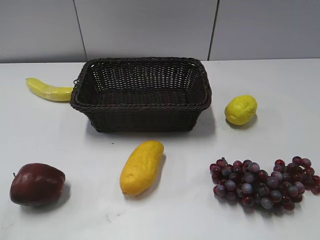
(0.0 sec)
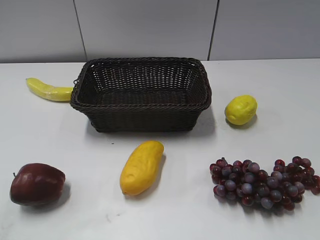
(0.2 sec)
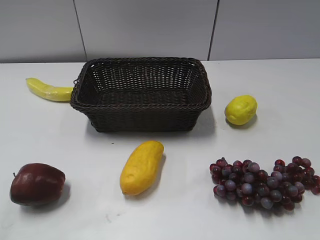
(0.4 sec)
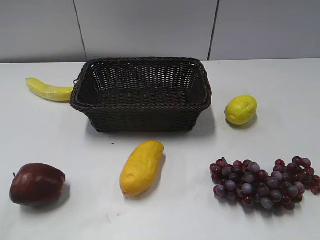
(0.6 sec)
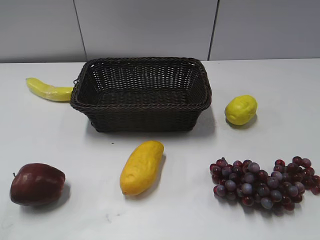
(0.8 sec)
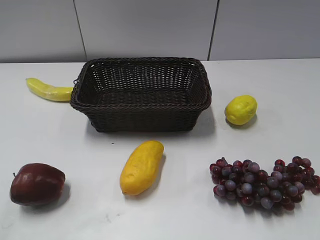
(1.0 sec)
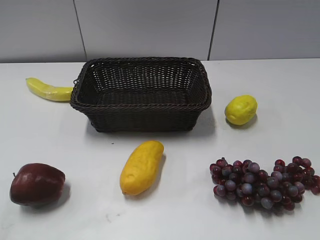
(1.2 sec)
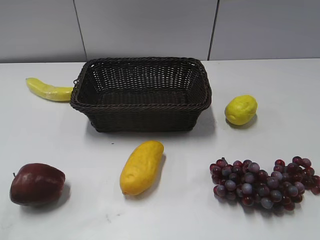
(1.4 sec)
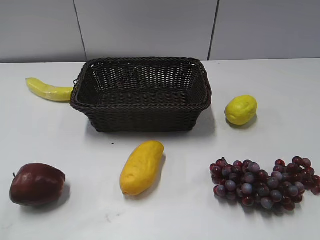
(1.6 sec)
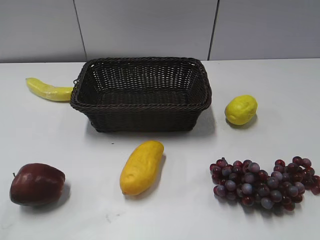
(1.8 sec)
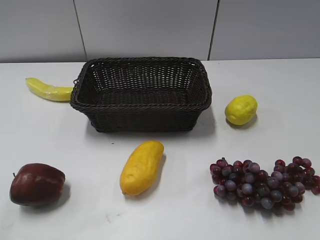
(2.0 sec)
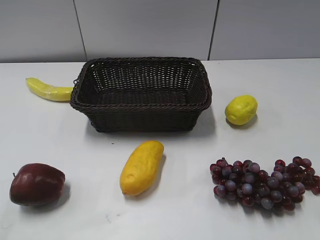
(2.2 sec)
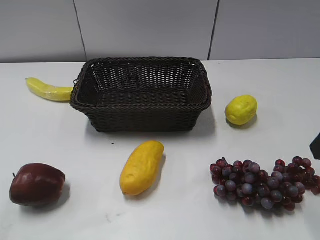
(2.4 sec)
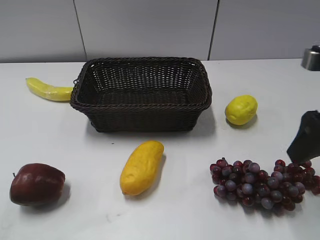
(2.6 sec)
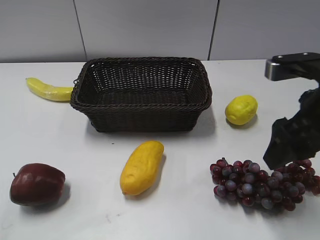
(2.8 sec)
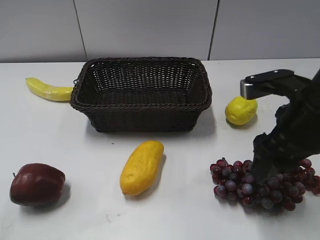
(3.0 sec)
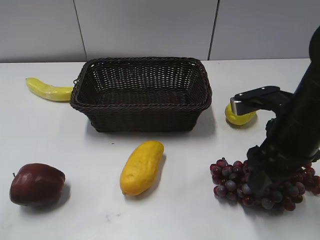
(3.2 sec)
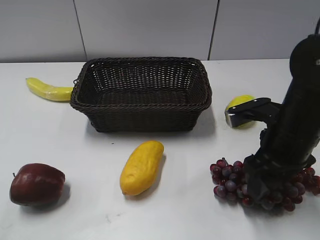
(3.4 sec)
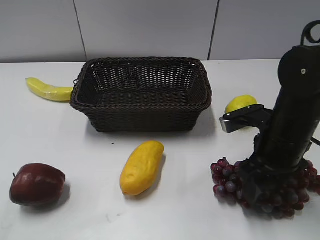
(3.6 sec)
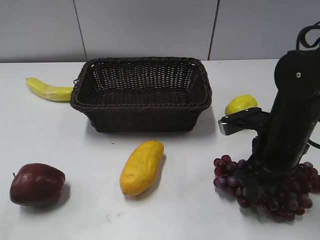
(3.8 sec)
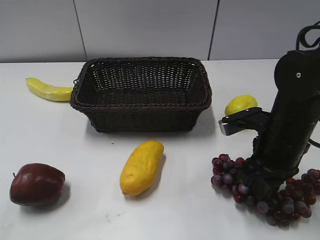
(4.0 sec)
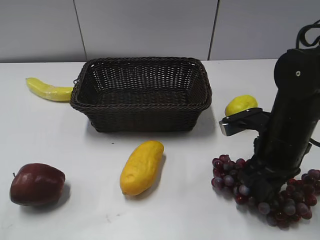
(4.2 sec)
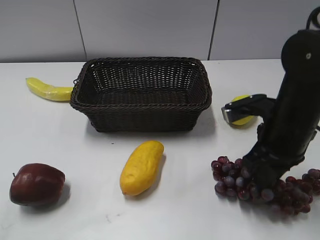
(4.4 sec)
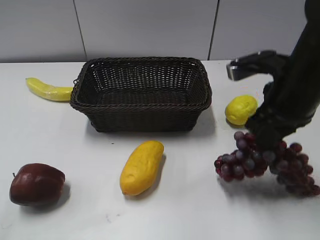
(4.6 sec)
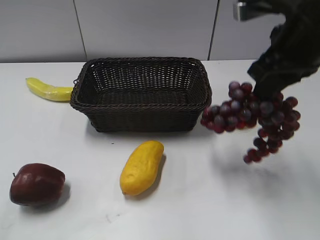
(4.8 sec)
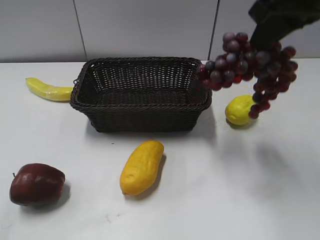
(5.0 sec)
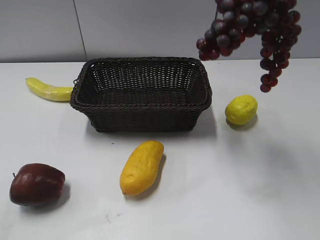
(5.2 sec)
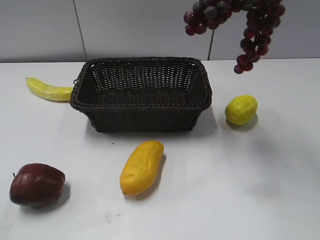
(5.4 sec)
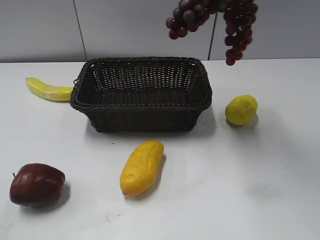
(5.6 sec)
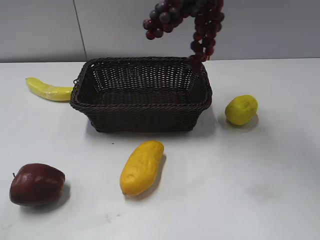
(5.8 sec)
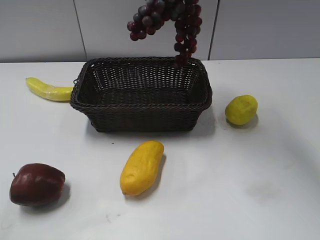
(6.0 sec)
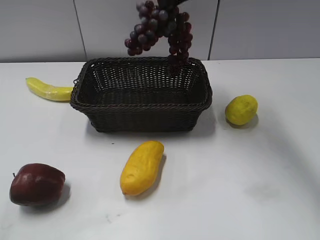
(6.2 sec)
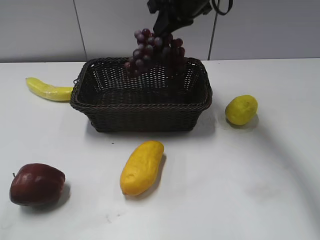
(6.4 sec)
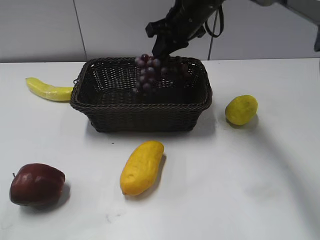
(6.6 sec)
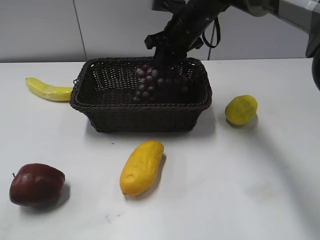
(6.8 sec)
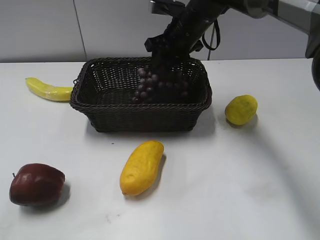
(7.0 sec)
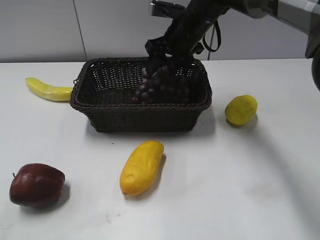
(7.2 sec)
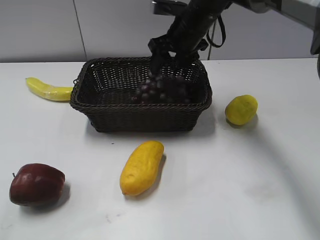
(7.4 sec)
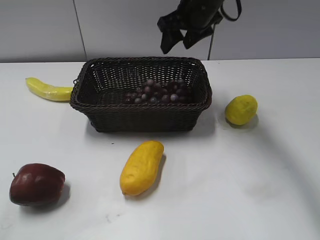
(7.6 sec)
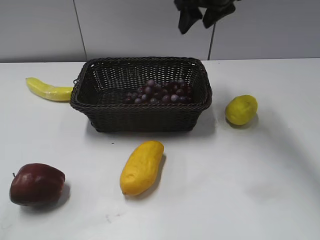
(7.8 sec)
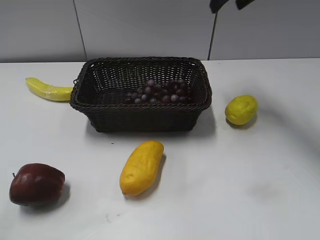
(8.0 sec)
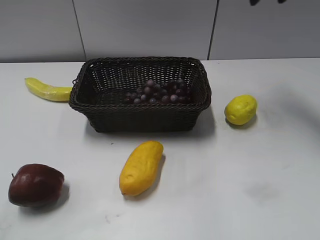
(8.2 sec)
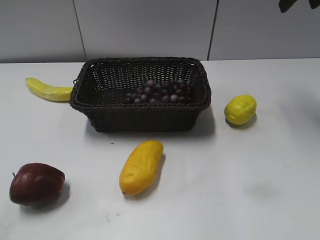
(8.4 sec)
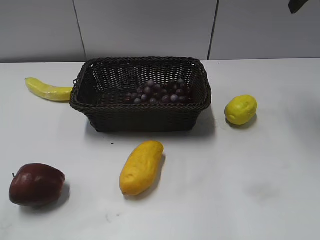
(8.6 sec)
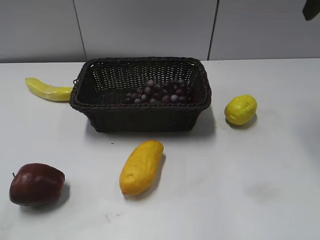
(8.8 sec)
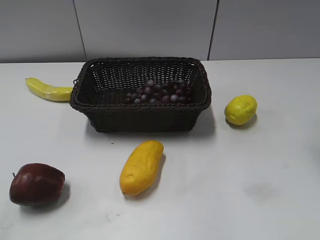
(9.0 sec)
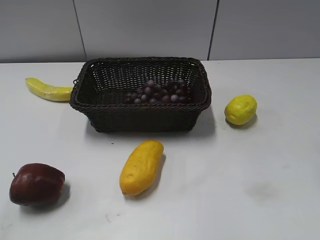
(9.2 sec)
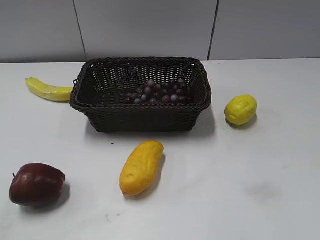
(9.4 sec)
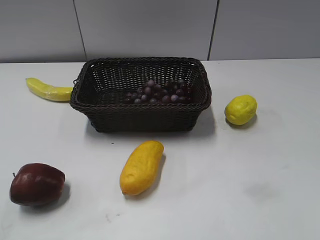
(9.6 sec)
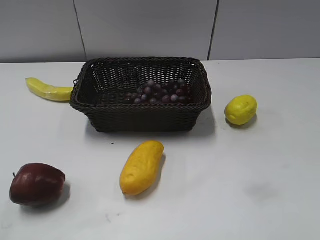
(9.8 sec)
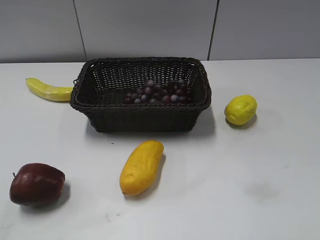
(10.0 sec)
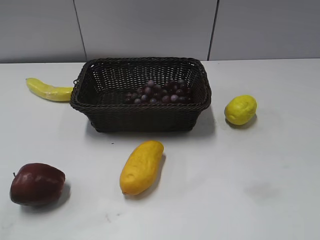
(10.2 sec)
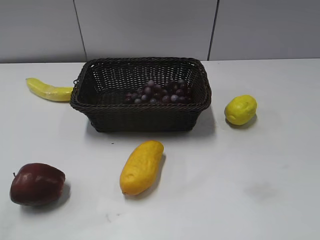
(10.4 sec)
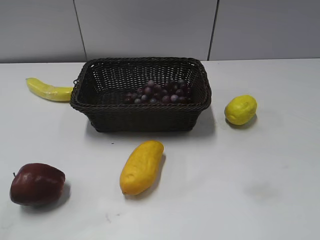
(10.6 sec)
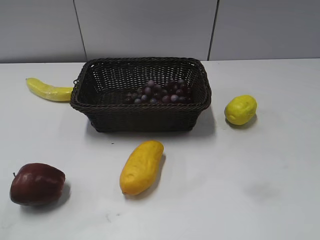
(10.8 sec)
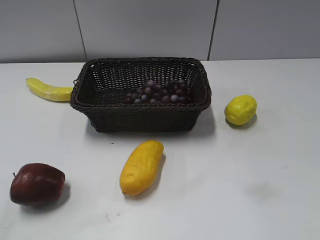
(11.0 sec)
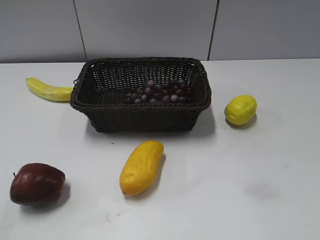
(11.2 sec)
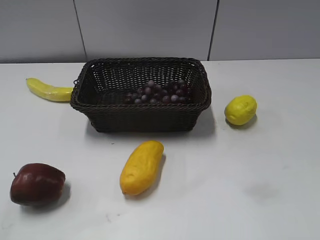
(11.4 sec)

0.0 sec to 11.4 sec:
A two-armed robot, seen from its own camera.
Step, 2.4 sec to 4.2 sec: Grasp the grape with right gripper.
Step, 4.4 sec to 7.4 sec: Place the grape in the basket with right gripper.
1.4 sec to 2.8 sec: The right gripper heads forward, to the left and downward, covering approximately 20 cm.
2.8 sec to 4.2 sec: The right gripper travels downward by approximately 10 cm, and closes up.
4.2 sec to 5.6 sec: The right gripper is displaced upward by some 25 cm.
5.6 sec to 7.2 sec: The right gripper travels downward and forward by about 25 cm, and opens its fingers.
7.2 sec to 8.6 sec: The right gripper travels to the right and upward by approximately 25 cm.
8.6 sec to 10.0 sec: The right gripper is displaced backward by approximately 30 cm.

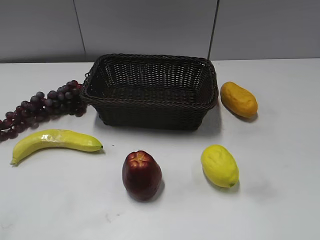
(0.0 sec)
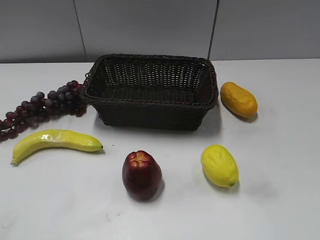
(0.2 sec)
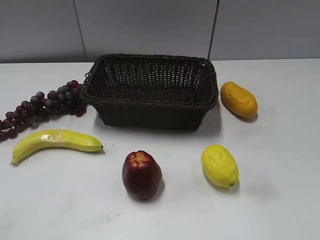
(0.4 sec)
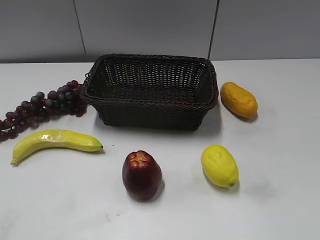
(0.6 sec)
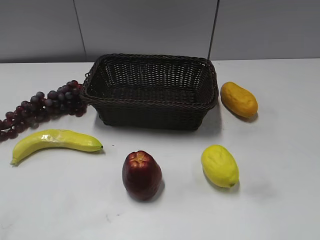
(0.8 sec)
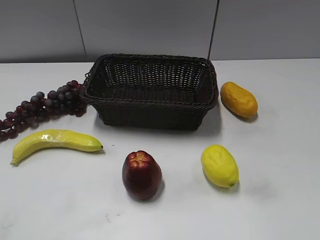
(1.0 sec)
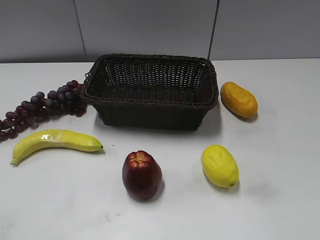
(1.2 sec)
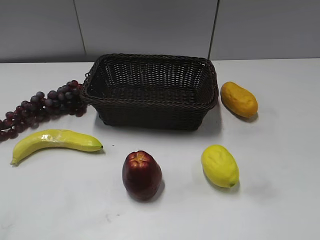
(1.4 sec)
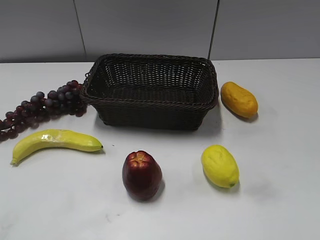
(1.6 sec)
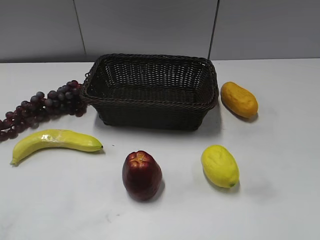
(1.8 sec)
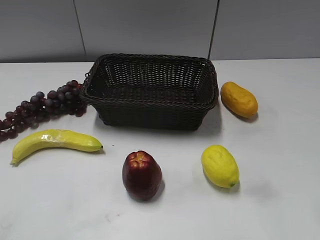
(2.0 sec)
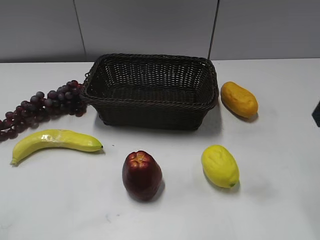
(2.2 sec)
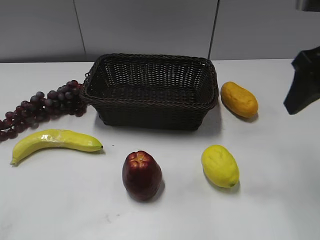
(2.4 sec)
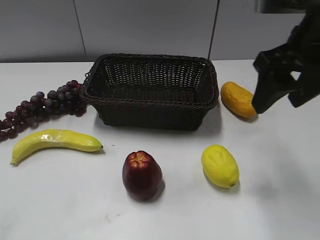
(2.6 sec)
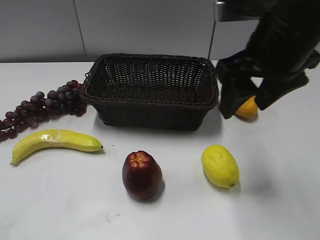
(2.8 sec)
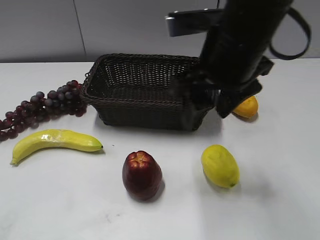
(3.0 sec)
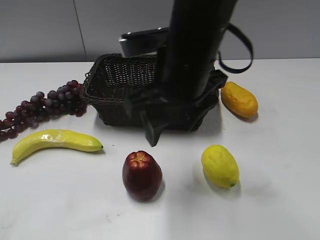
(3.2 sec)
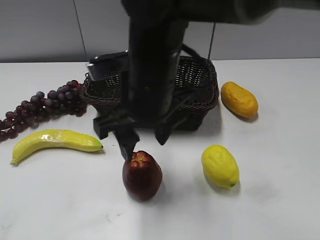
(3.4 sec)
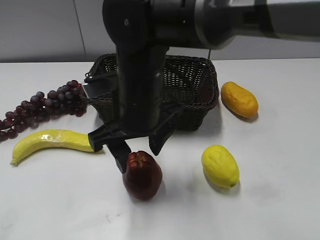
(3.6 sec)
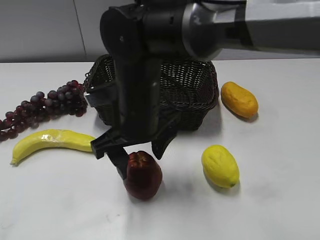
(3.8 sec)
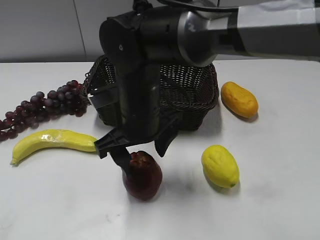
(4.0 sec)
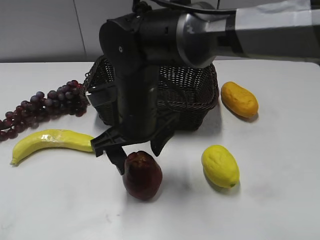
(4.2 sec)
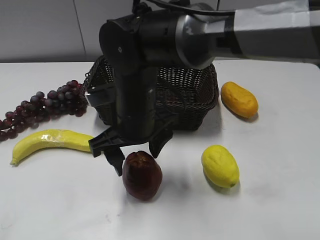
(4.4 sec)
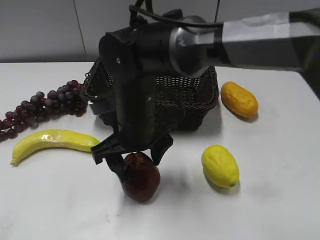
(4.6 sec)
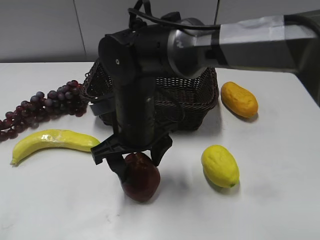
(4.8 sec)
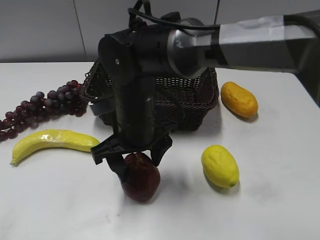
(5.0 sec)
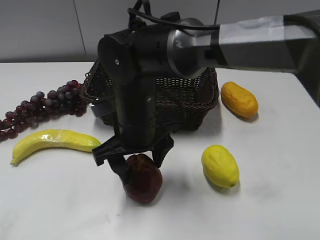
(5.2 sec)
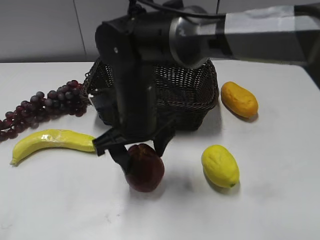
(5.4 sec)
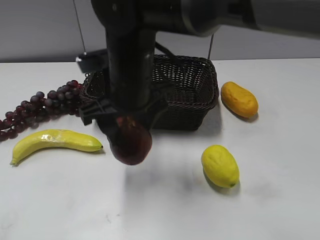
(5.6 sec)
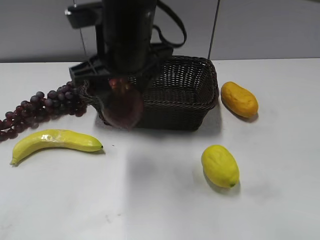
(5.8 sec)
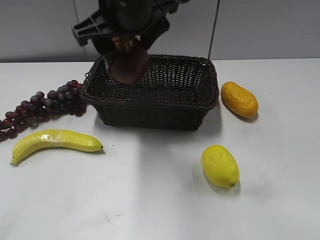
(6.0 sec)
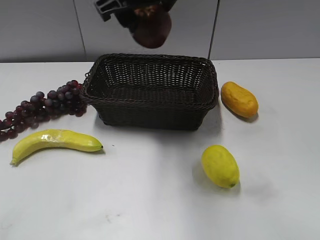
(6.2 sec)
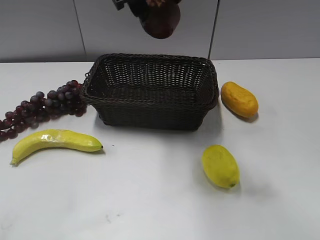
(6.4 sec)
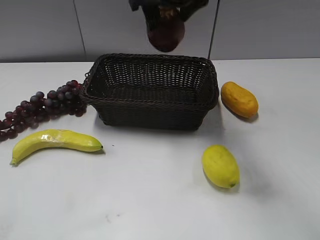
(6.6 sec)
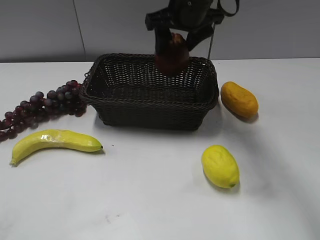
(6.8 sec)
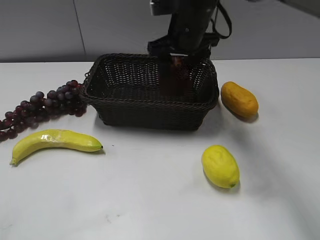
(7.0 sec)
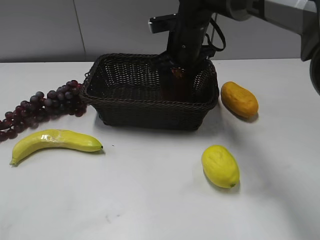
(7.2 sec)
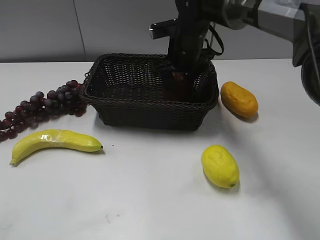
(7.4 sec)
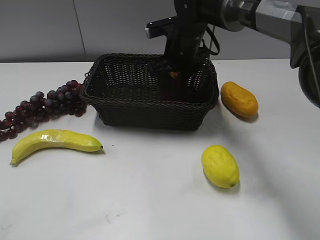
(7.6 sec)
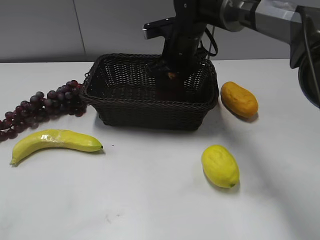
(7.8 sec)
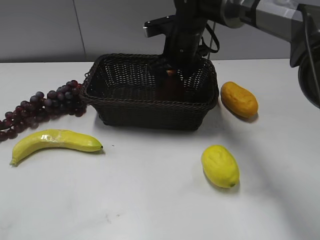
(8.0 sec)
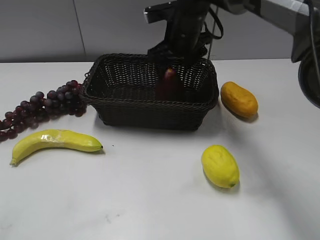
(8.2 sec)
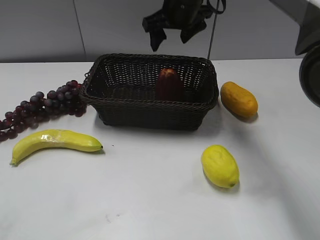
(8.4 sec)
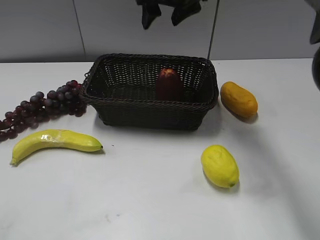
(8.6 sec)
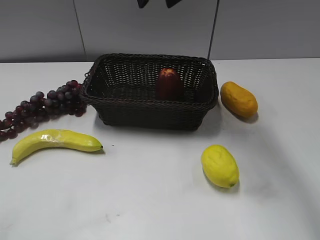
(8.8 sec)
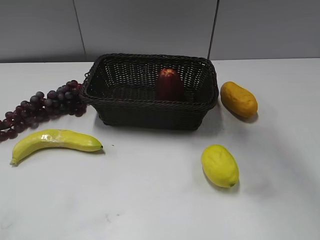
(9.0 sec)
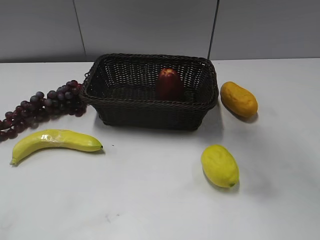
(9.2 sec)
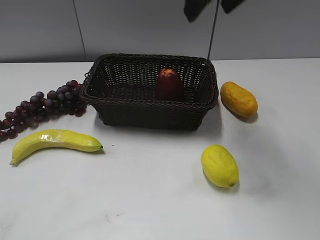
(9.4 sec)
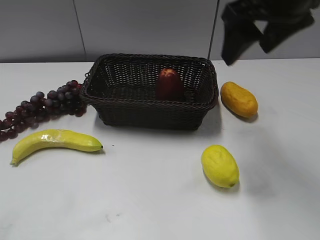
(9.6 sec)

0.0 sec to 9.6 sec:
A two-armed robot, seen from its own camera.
Step, 2.2 sec to 4.8 sec: Grasp the apple with right gripper.
Step, 5.0 sec to 7.4 sec: Place the apple in the basket with right gripper.
1.6 sec to 3.2 sec: The right gripper shifts roughly 30 cm to the left and forward, while the left gripper closes up.
3.2 sec to 4.8 sec: The right gripper goes about 15 cm downward and to the left.
4.8 sec to 6.4 sec: The right gripper goes about 20 cm upward and forward.
6.4 sec to 8.0 sec: The right gripper travels downward and forward by roughly 20 cm, and opens.
8.0 sec to 9.6 sec: The right gripper is displaced upward, backward and to the right by some 25 cm, and closes, then opens again.

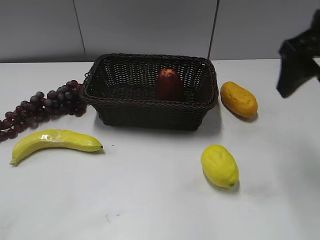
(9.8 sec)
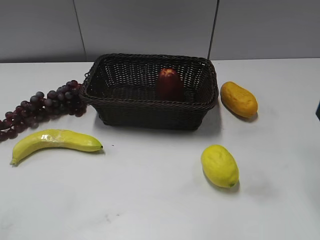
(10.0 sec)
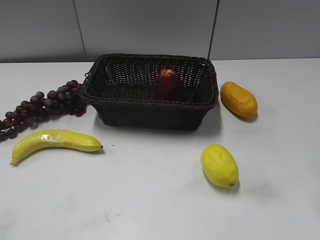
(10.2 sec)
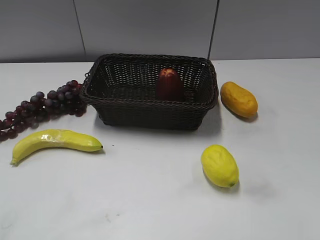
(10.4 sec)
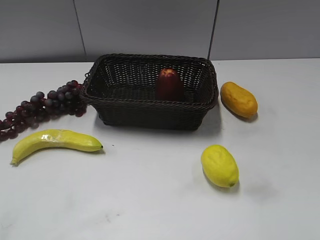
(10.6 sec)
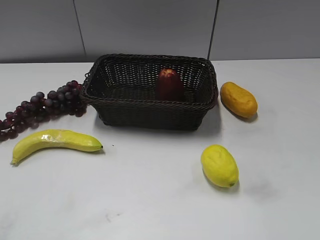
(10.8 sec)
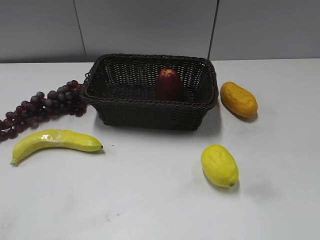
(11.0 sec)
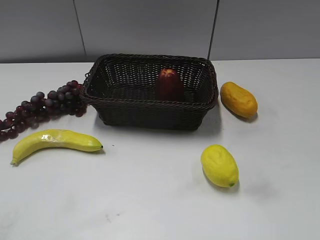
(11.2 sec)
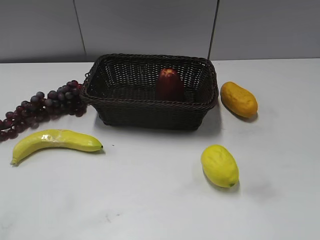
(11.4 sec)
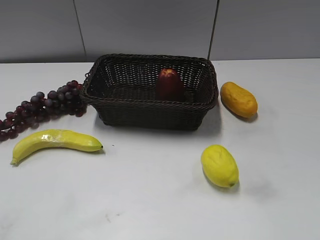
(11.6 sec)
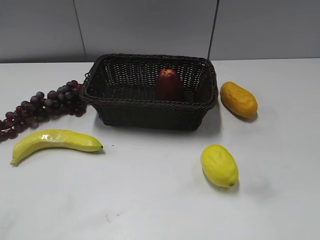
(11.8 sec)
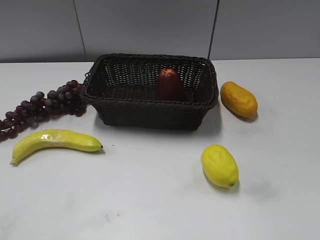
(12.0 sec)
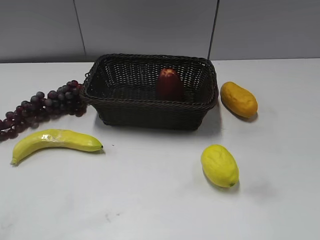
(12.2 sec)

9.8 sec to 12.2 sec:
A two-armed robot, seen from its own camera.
9.8 sec to 11.0 sec: The right gripper travels backward by approximately 20 cm.
